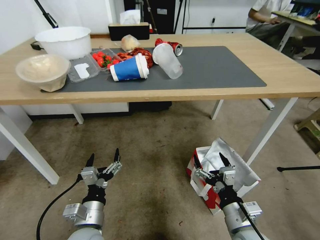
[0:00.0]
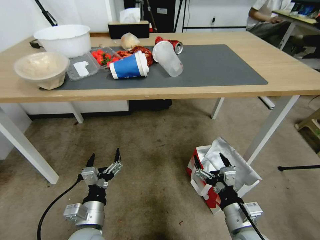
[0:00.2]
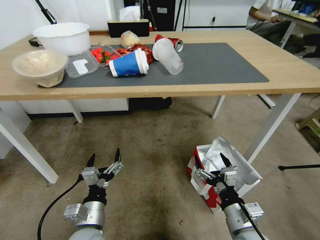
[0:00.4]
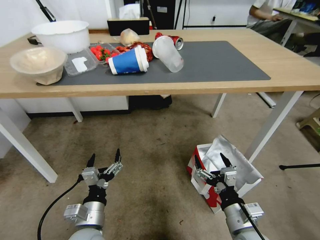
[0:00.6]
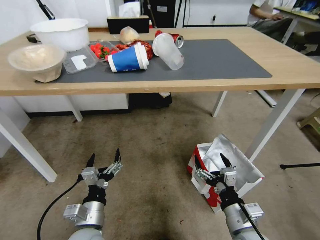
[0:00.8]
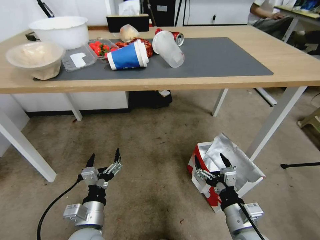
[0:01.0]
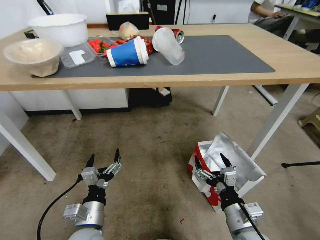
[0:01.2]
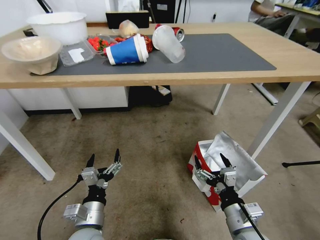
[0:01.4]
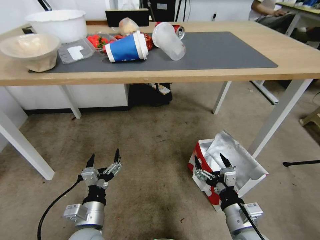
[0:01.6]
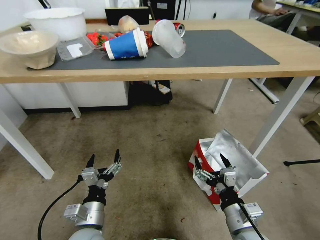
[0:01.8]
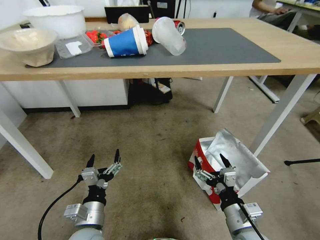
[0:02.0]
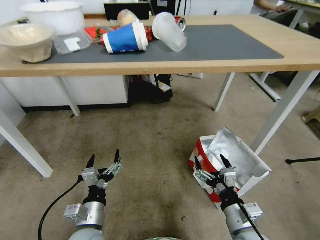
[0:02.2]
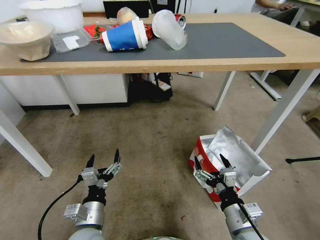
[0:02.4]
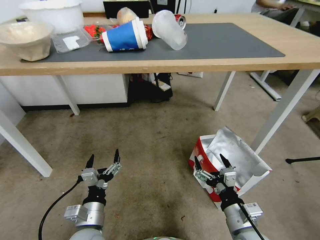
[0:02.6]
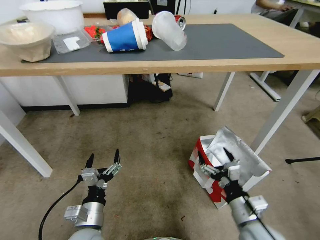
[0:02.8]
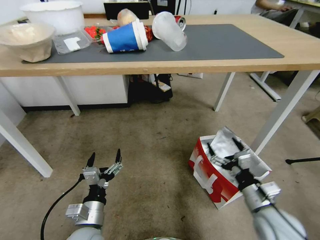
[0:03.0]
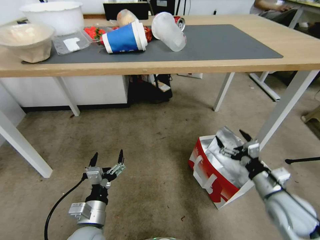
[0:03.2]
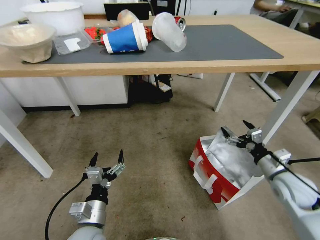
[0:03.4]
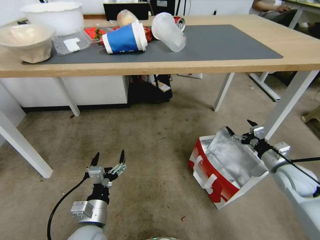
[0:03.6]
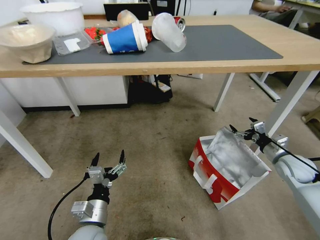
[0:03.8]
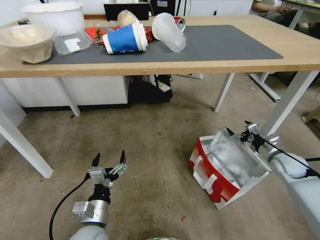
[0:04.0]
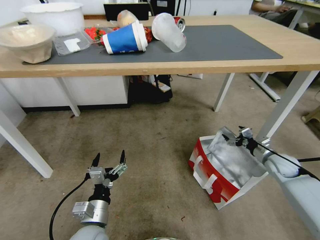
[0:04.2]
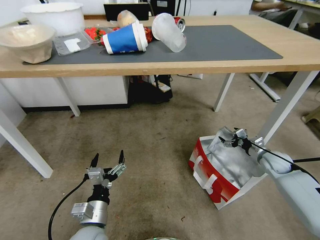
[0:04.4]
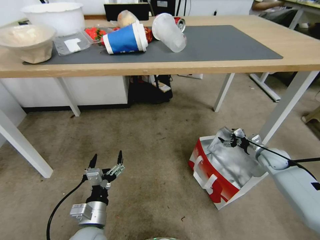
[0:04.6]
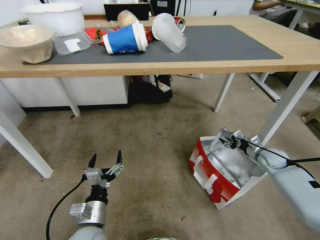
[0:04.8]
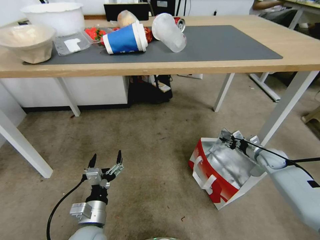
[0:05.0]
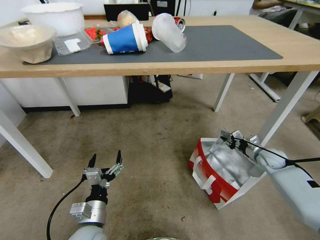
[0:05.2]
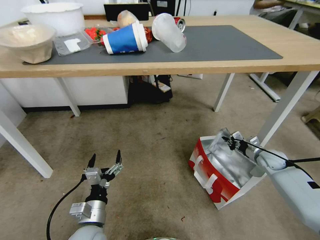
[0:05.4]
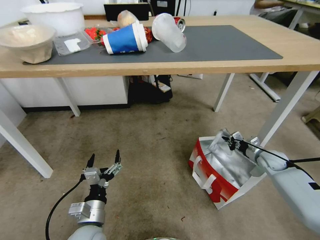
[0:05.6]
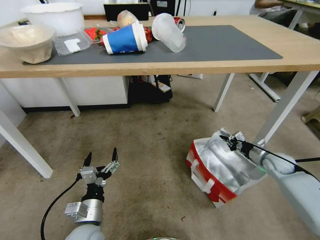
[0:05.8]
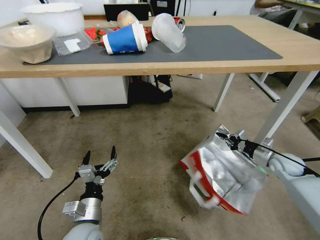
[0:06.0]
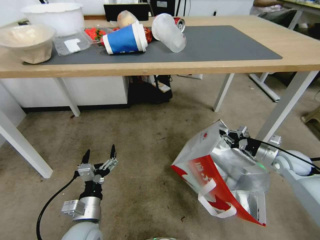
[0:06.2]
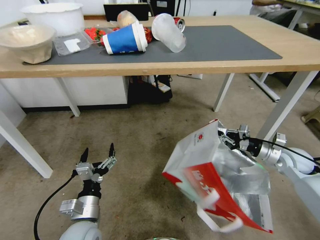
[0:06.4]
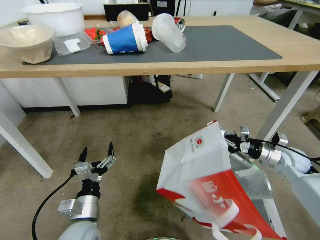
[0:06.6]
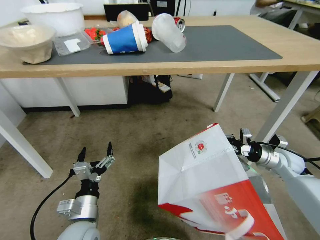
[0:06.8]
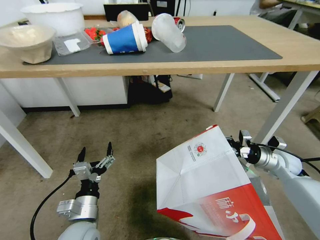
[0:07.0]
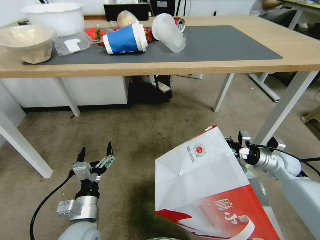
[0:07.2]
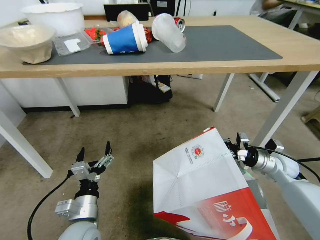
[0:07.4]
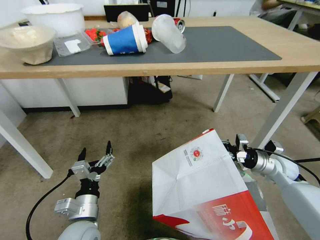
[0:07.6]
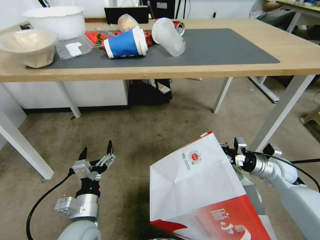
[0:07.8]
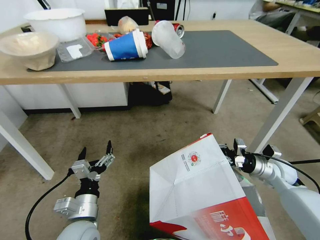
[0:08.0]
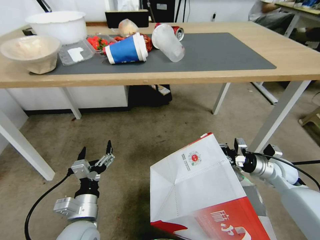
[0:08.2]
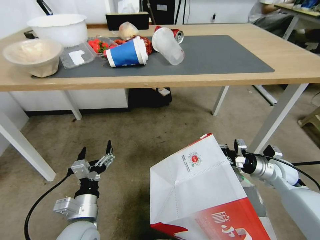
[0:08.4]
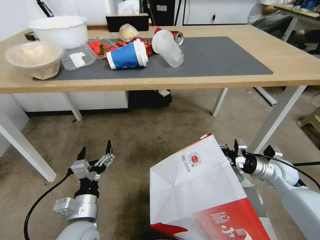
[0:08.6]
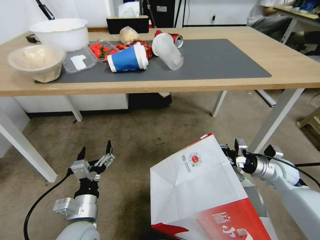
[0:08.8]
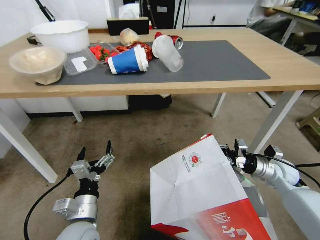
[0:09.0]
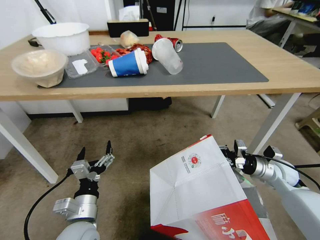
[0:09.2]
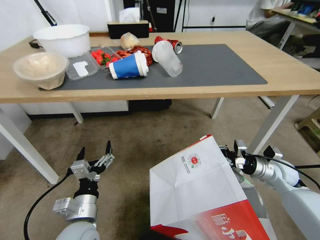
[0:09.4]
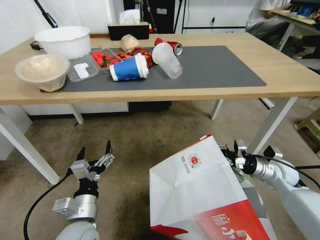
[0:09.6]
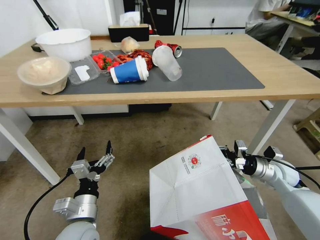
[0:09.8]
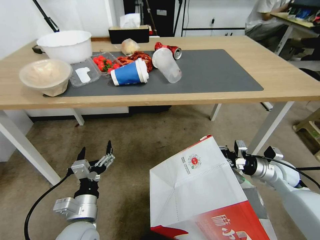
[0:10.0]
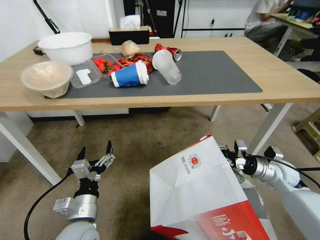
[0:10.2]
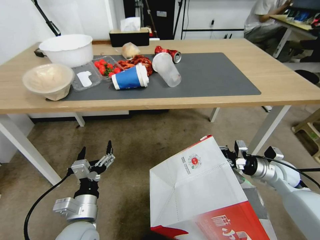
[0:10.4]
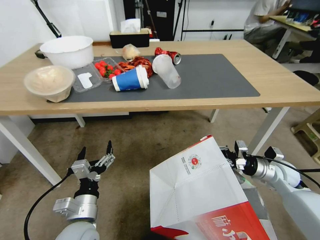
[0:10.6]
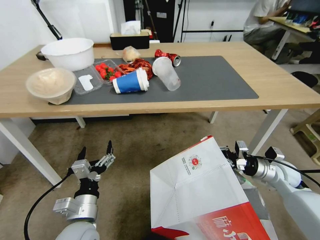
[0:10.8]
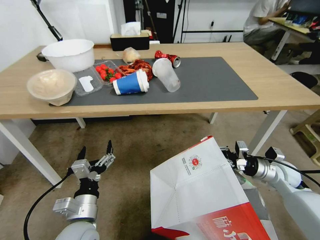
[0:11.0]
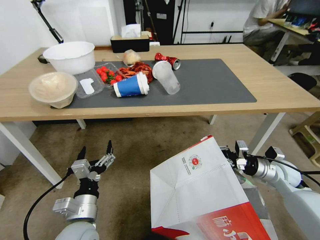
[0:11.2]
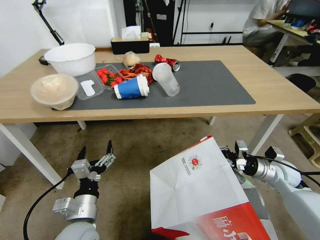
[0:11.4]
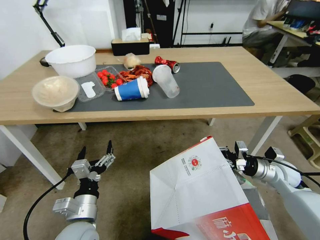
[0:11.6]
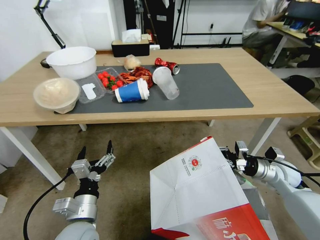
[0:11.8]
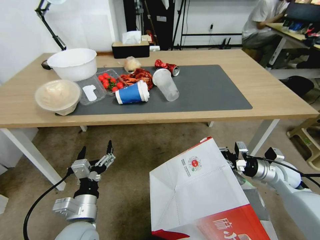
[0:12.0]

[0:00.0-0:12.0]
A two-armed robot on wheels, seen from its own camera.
Task of the whole recording: Pick up the food delivery bag from the floor and place it on the table.
0:01.6 to 0:03.0: The right gripper goes approximately 5 cm to the right.
0:03.0 to 0:04.4: The right gripper travels forward and to the right by about 30 cm.
0:04.4 to 0:06.0: The right gripper closes its fingers.
0:06.0 to 0:07.6: The right gripper heads to the left, covering some 5 cm.

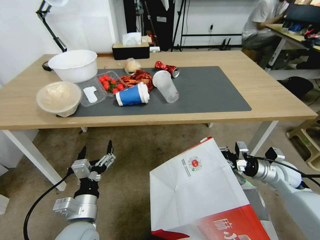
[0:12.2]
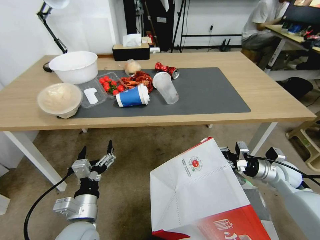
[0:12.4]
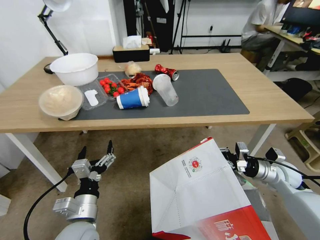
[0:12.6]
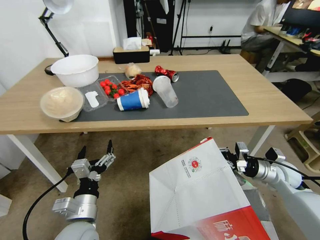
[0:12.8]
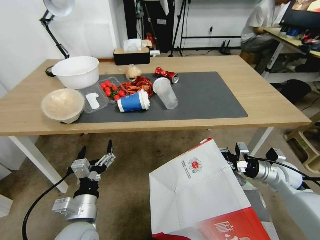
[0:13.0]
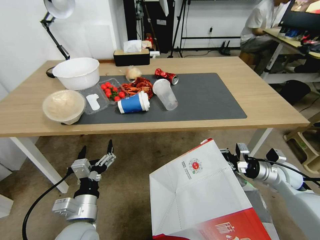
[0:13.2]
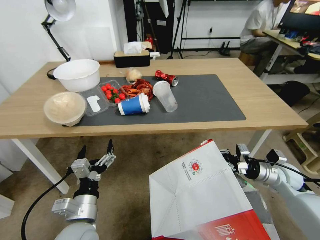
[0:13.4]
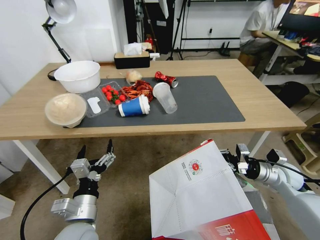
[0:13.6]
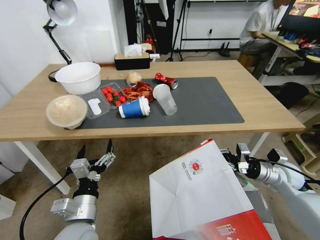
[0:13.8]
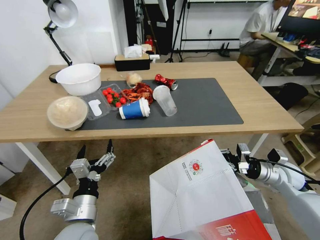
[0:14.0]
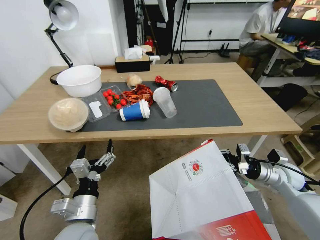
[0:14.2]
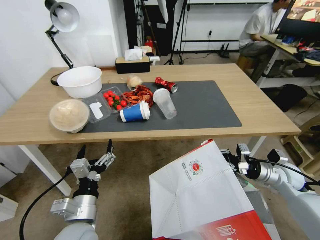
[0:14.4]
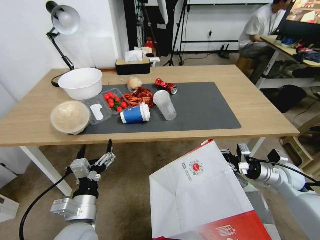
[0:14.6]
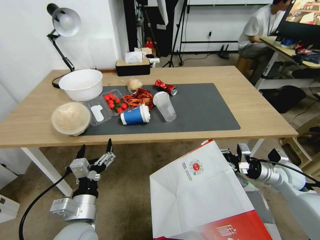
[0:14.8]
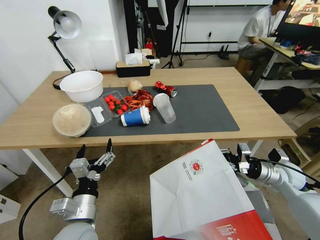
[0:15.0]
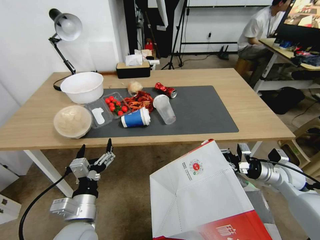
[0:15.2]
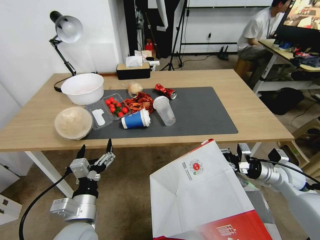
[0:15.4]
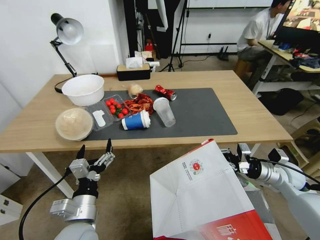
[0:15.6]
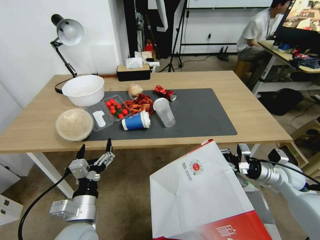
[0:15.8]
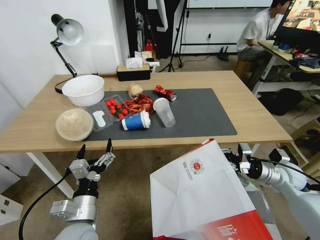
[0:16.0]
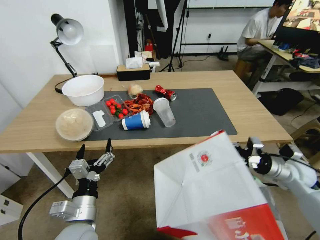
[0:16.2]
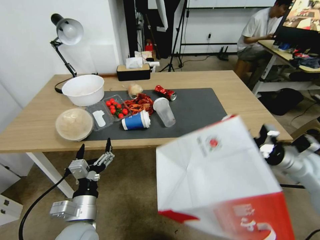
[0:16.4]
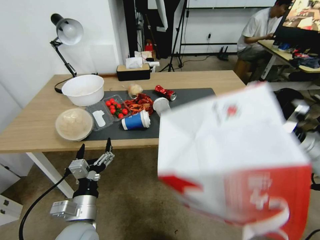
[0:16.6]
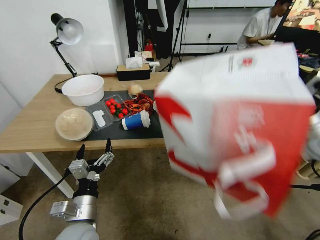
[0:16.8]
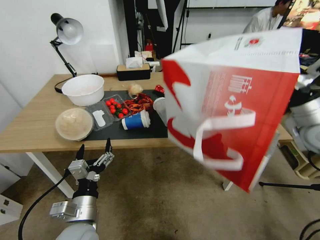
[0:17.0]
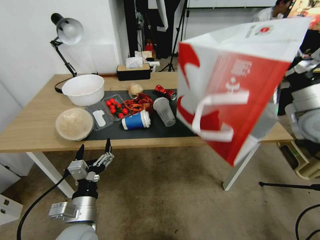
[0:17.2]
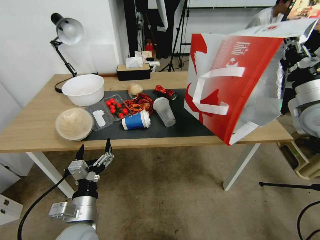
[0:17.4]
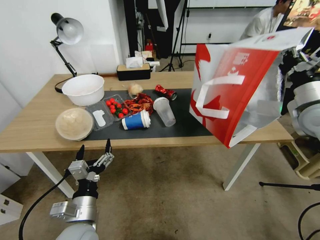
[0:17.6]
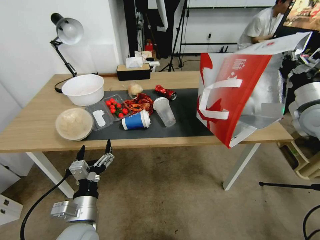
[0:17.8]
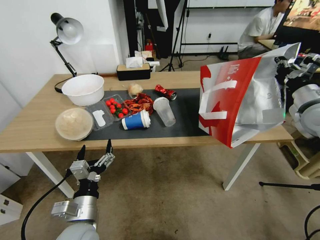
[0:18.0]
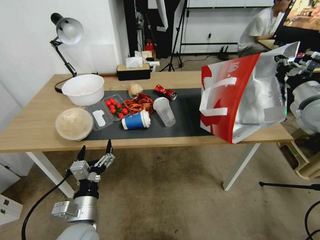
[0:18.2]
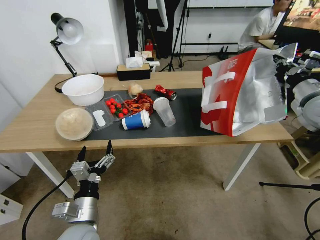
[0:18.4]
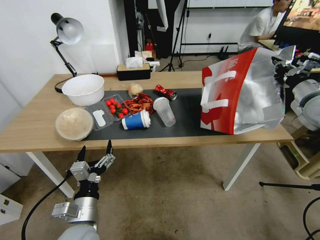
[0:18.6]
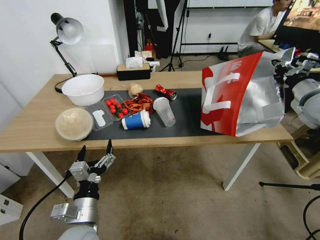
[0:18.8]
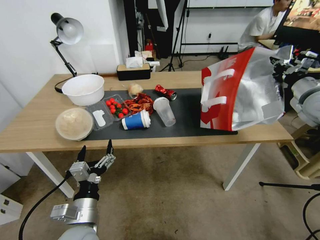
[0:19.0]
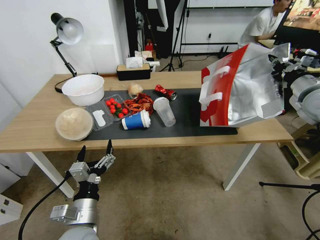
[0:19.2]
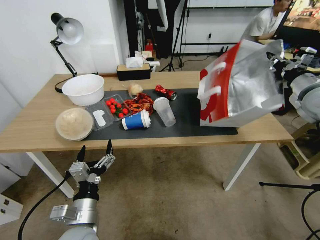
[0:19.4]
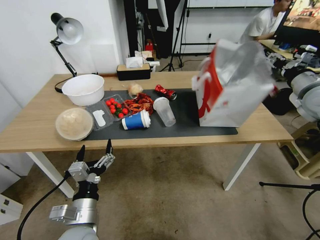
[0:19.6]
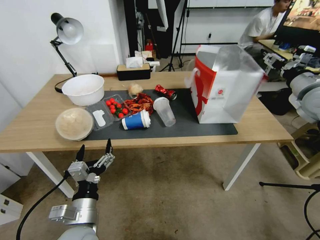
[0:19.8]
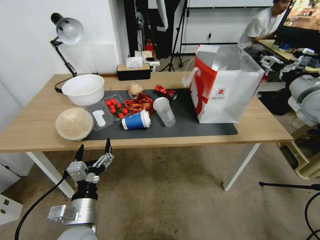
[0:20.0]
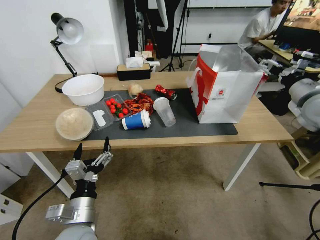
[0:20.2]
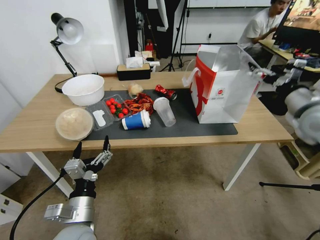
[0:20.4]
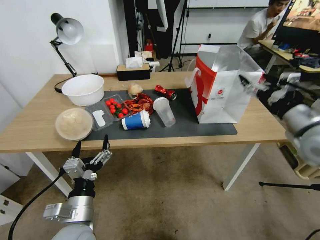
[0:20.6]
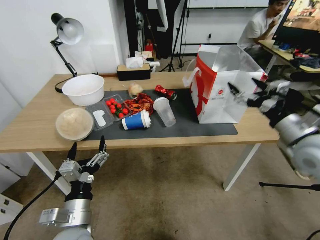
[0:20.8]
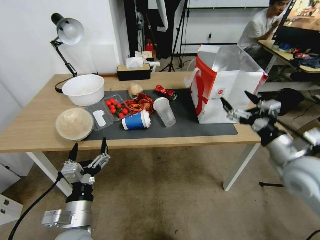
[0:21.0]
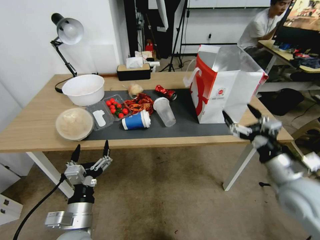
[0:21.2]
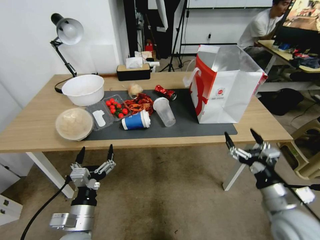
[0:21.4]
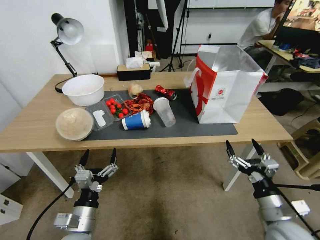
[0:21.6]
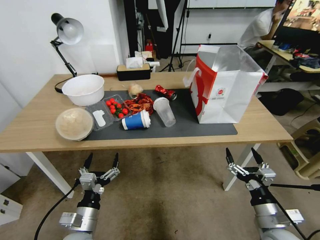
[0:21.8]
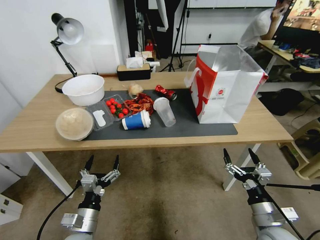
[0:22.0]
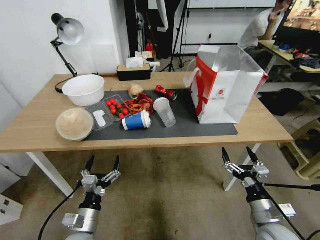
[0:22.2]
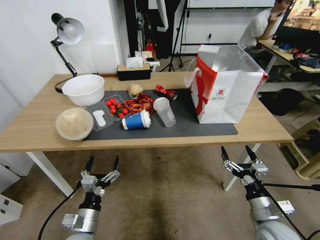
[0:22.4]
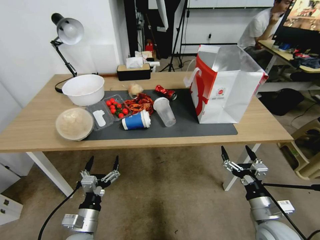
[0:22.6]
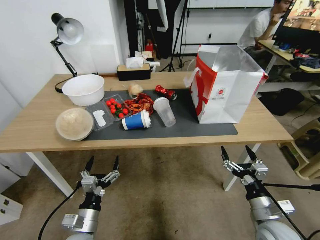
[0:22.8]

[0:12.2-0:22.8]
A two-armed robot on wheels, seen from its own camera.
Task of the whole recording: Pick up the food delivery bag from the floor and place it on the table.
0:15.2 to 0:16.8: The right gripper shifts some 15 cm upward.
0:16.8 to 0:18.2: The right gripper travels forward by some 5 cm.
0:18.2 to 0:19.8: The right gripper opens its fingers.
0:19.8 to 0:21.2: The right gripper is displaced backward, downward and to the left by about 25 cm.
0:21.2 to 0:22.8: The left gripper moves downward, roughly 10 cm. Meanwhile the right gripper goes some 15 cm downward and backward.
